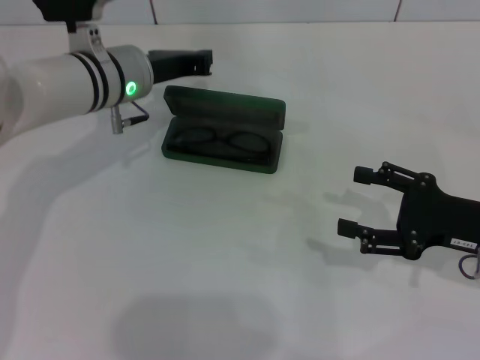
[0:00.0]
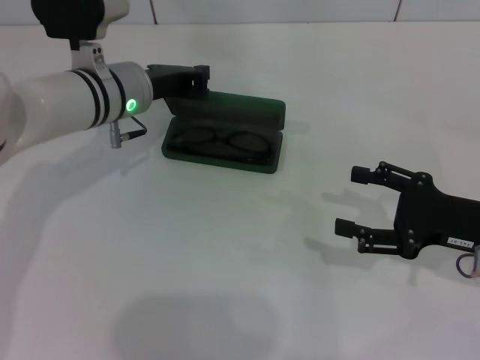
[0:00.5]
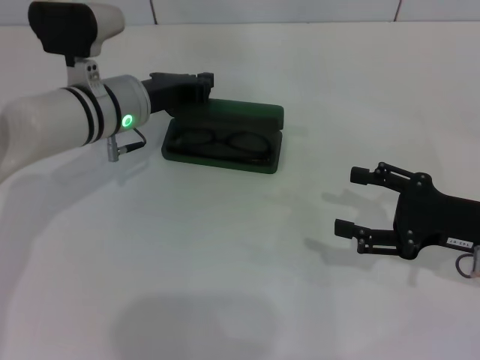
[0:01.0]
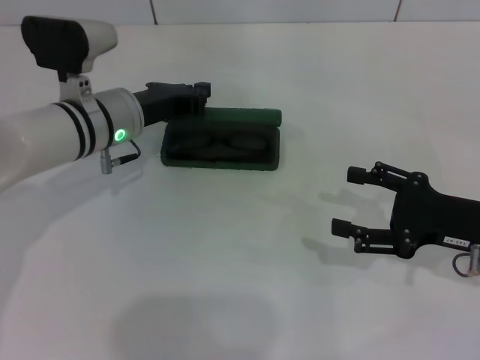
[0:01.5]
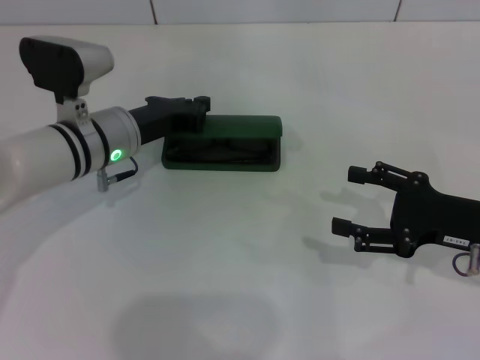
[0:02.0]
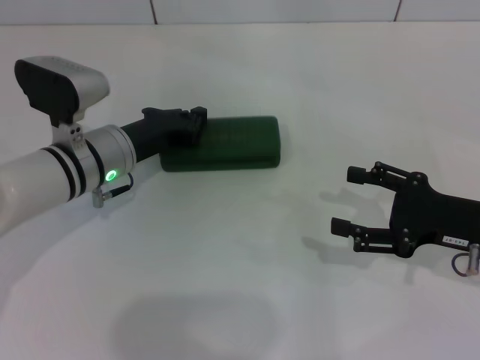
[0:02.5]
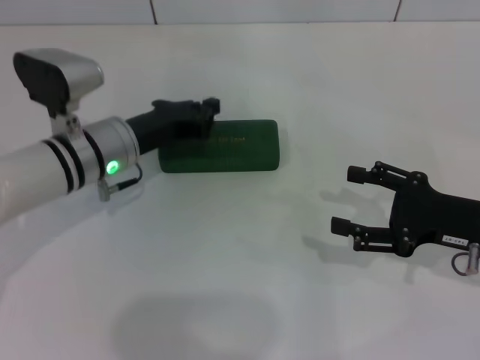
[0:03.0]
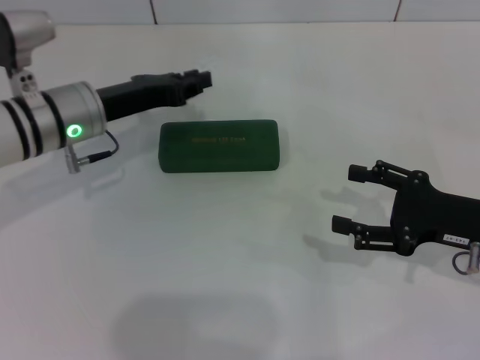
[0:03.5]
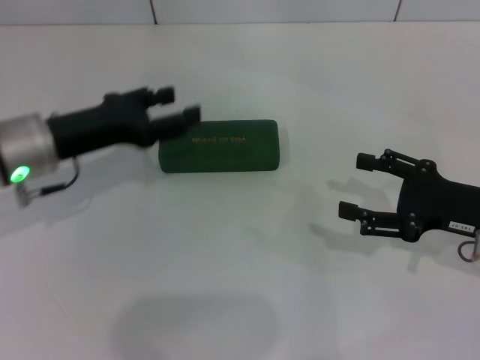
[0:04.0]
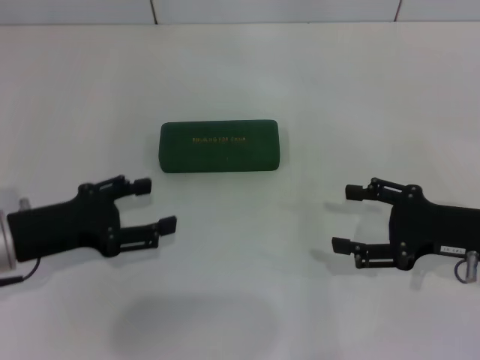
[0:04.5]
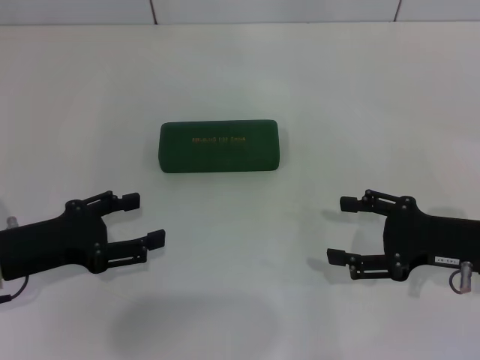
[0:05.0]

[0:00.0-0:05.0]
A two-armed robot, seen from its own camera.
Step, 0:00.0 to 0:02.0: Close the glasses case with your left hand.
0:00.0 to 0:02.5: The left gripper moves backward and downward, approximately 10 cm.
0:02.5 to 0:05.0: The left gripper is displaced backward and to the left by roughly 15 cm, and opens.

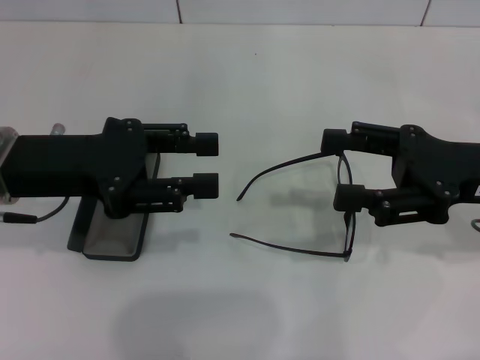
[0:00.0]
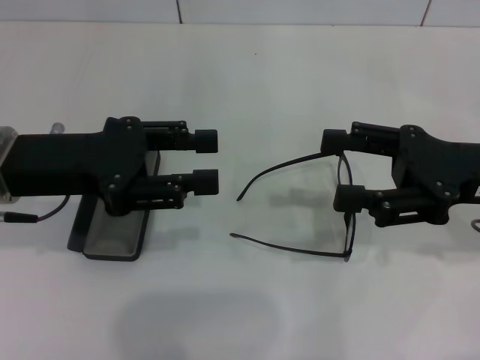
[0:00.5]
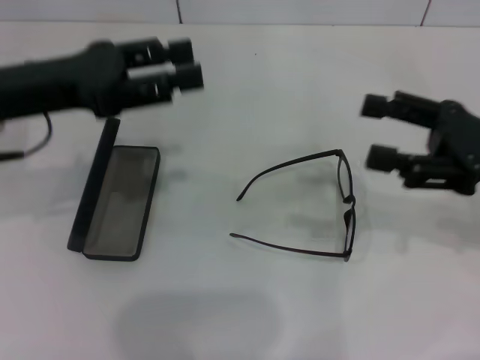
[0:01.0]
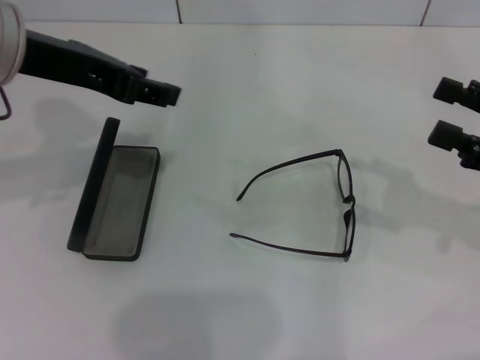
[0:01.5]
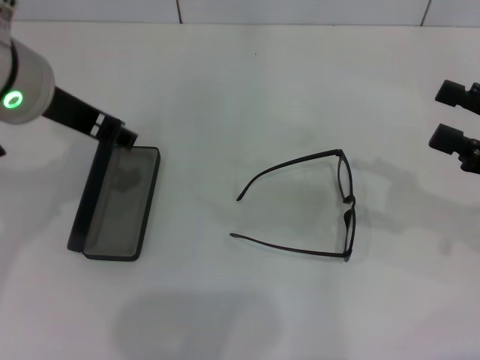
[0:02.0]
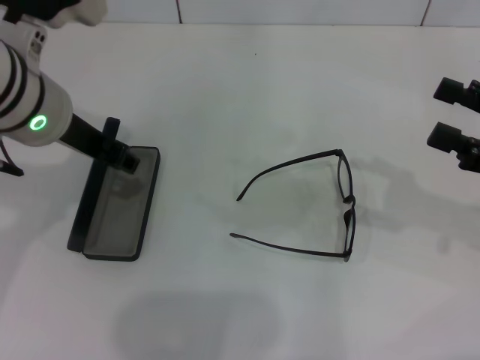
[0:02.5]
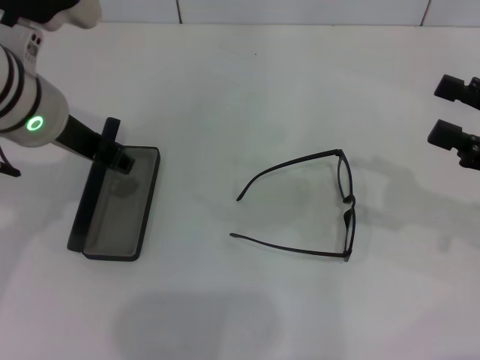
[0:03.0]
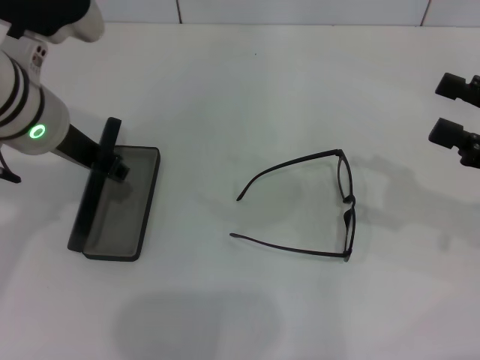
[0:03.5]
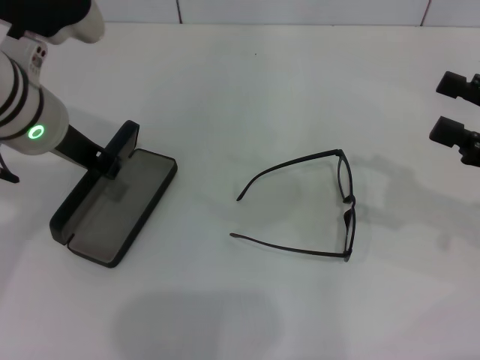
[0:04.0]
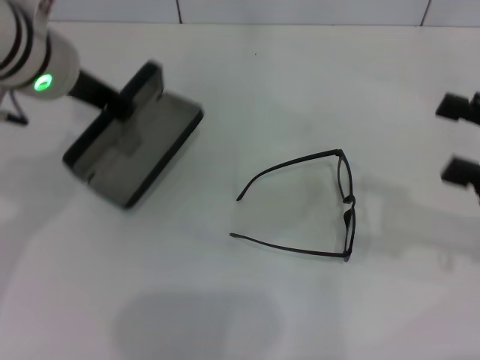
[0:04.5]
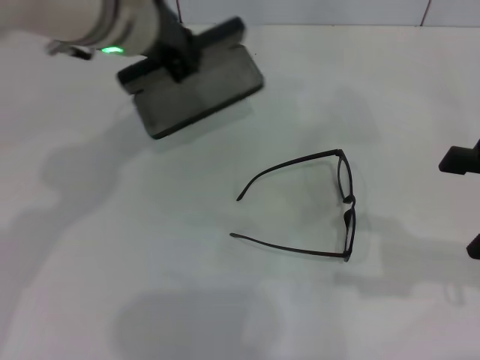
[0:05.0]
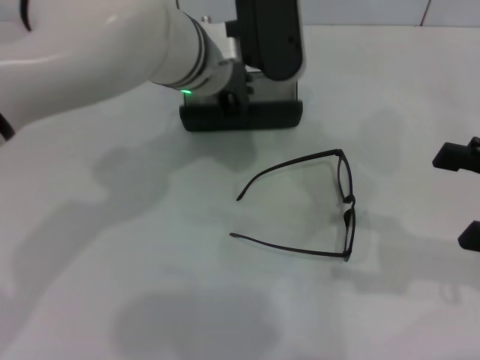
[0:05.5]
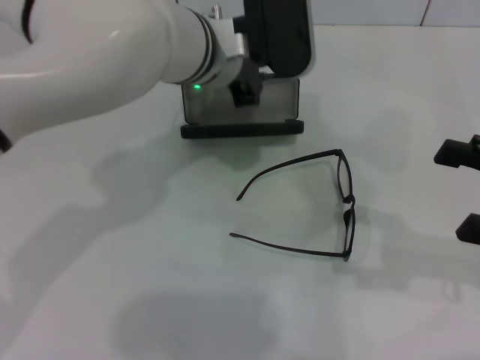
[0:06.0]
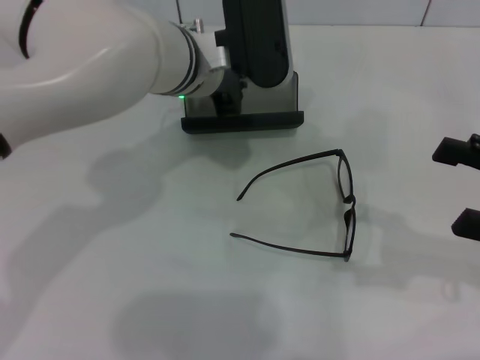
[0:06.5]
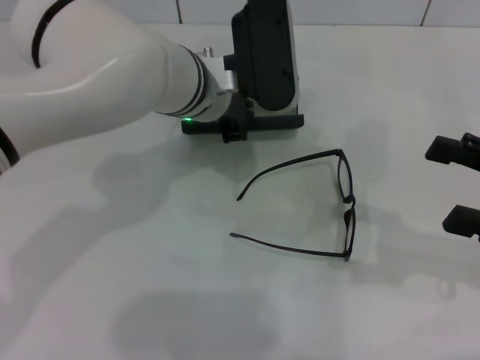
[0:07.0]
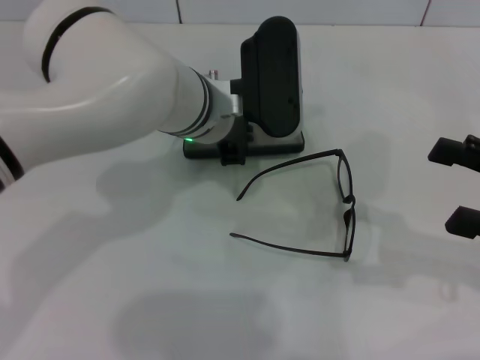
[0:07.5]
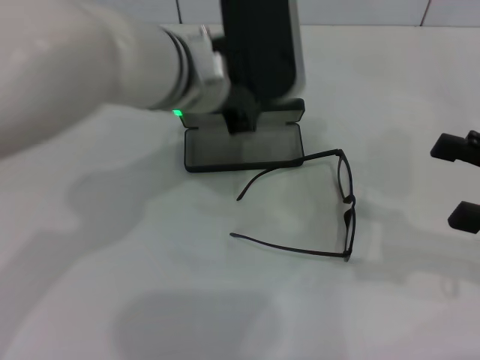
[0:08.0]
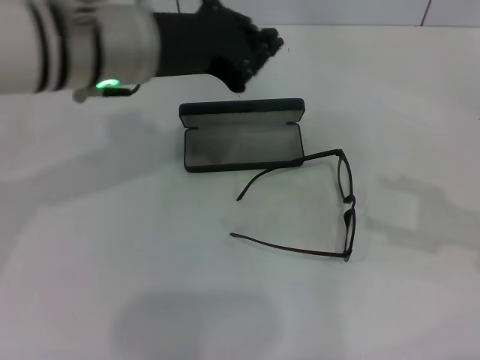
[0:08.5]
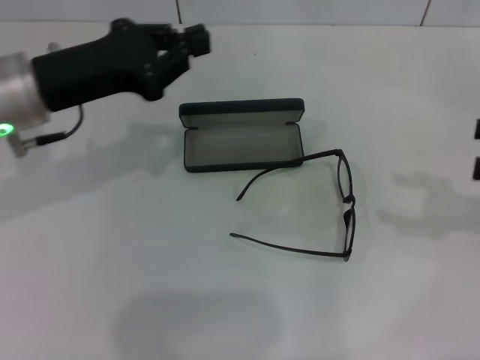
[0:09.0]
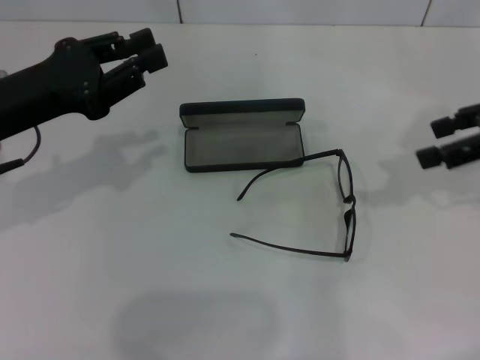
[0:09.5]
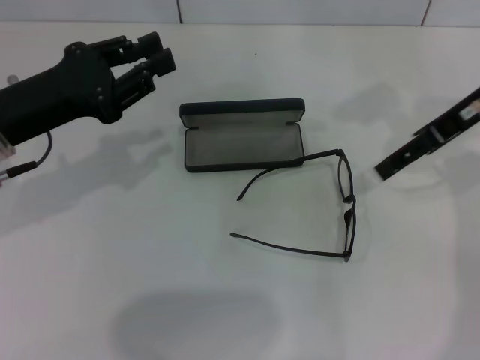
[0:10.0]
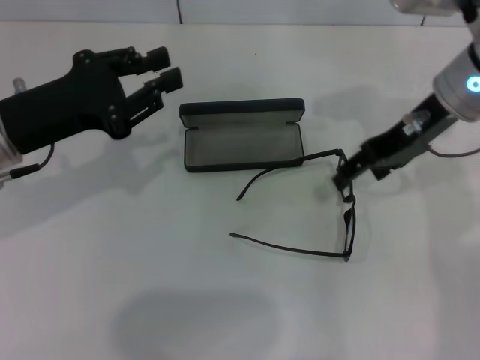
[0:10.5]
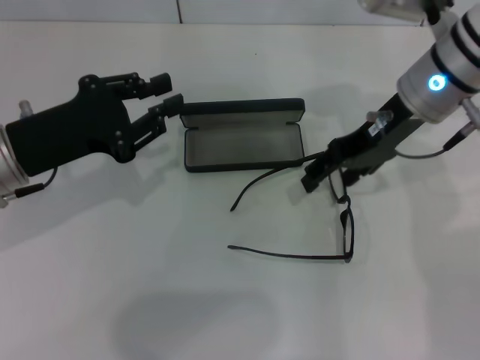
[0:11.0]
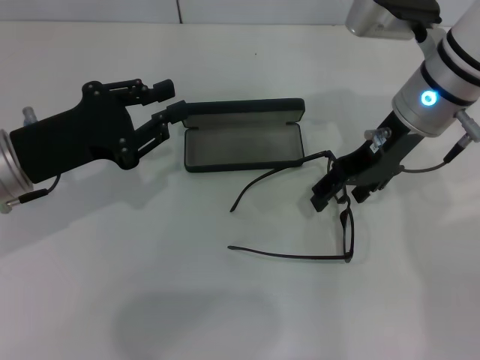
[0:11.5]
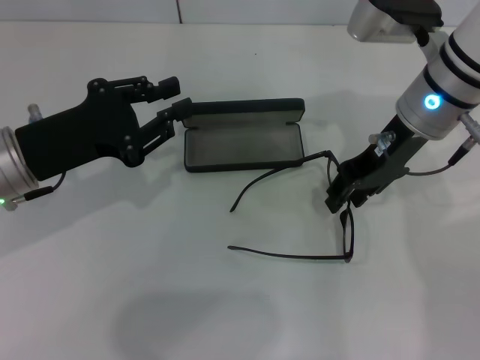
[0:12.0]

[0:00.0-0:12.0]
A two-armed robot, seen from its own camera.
Step, 0:00.0 to 0:03.5: Grab the glasses case with your left hand.
Step, 0:04.0 to 0:07.5: Place the glasses case in the center of the table with your left hand.
0:00.0 to 0:02.0: The left gripper travels upward and to the right by about 10 cm. Meanwhile the right gripper heads to the right, covering approximately 10 cm.
0:02.0 to 0:04.0: The left gripper travels downward by some 5 cm, and closes its fingers.
0:04.0 to 0:06.0: The left gripper travels to the right by roughly 15 cm, and closes.
0:06.0 to 0:08.0: There are only small adjustments of the grippers.
0:08.0 to 0:10.0: The right gripper moves forward, to the left and upward, approximately 20 cm; the left gripper is displaced to the left by approximately 20 cm, and opens.
0:10.0 to 0:12.0: The right gripper travels to the left and downward by approximately 10 cm.

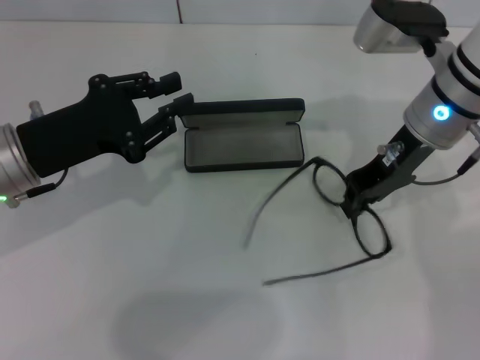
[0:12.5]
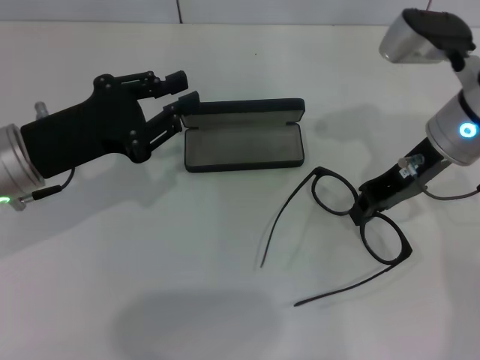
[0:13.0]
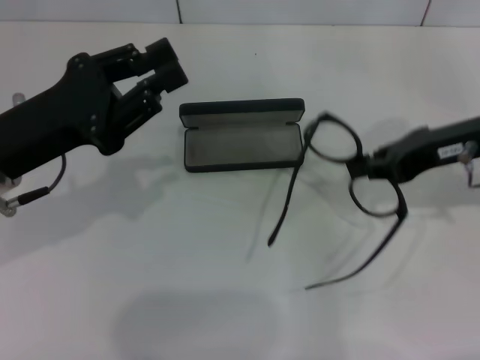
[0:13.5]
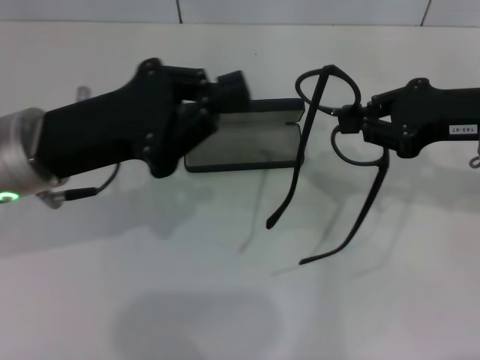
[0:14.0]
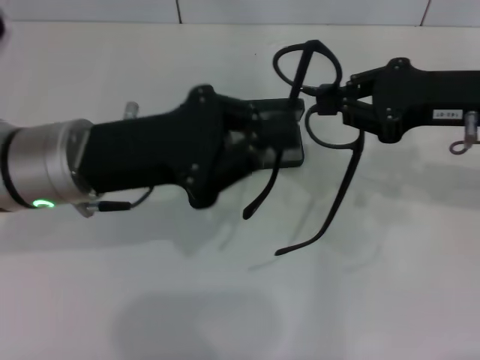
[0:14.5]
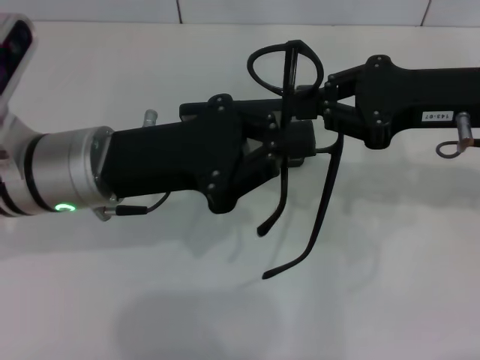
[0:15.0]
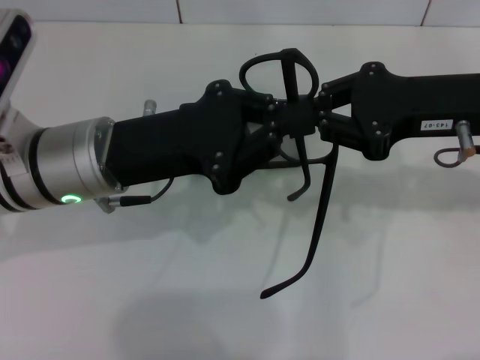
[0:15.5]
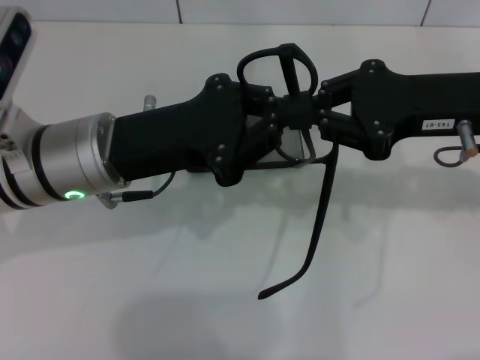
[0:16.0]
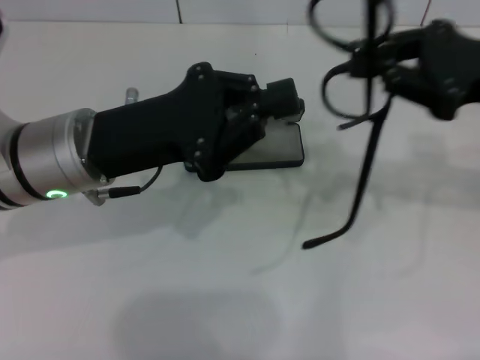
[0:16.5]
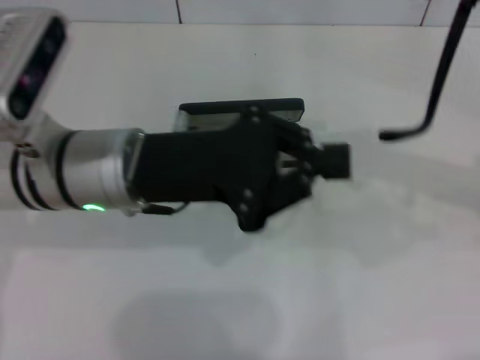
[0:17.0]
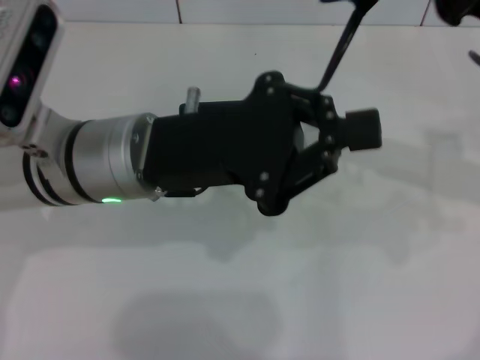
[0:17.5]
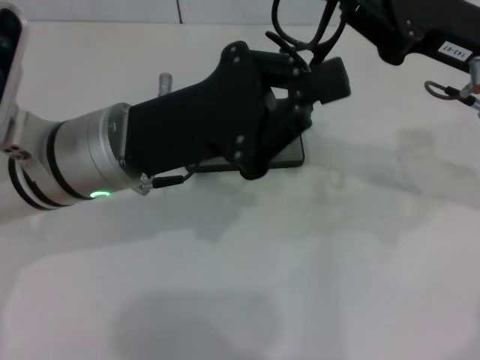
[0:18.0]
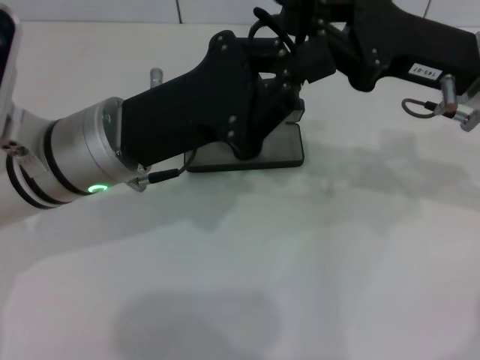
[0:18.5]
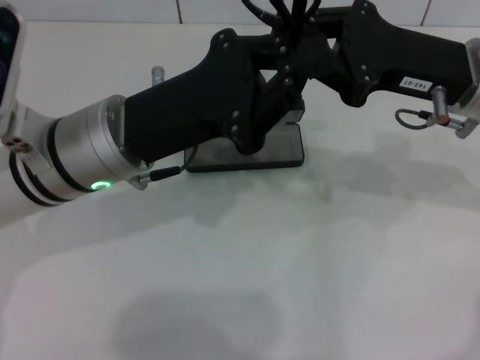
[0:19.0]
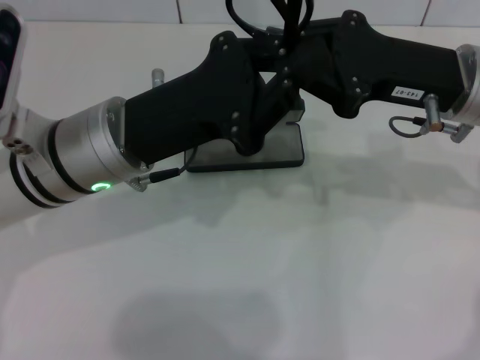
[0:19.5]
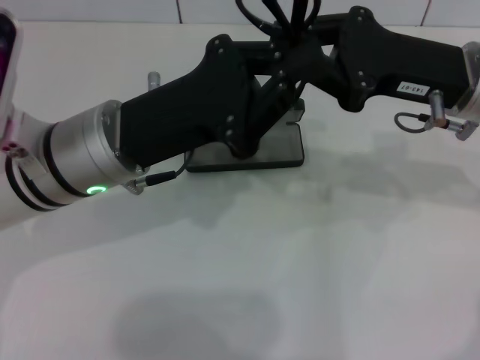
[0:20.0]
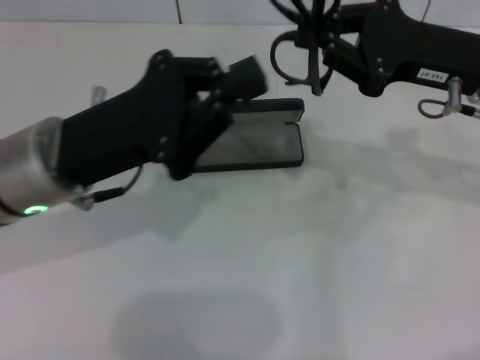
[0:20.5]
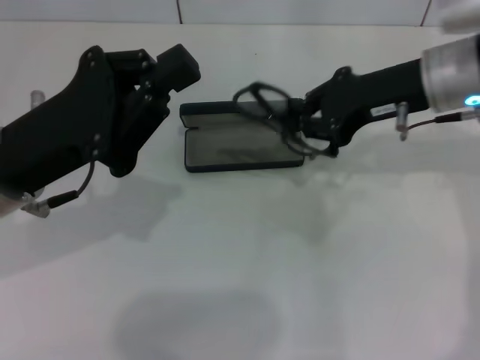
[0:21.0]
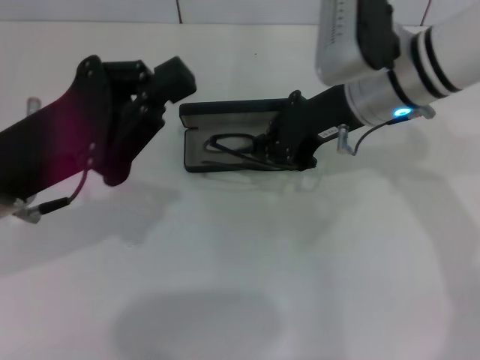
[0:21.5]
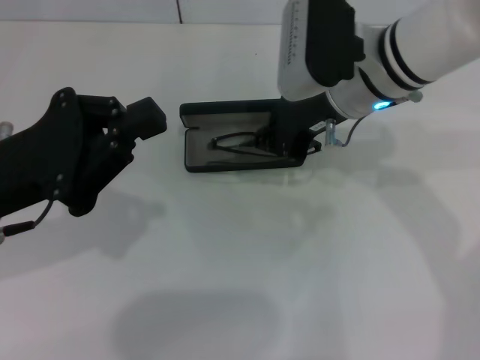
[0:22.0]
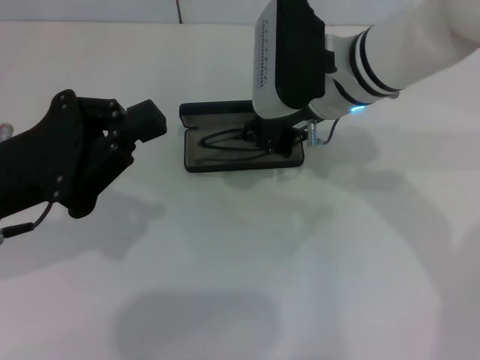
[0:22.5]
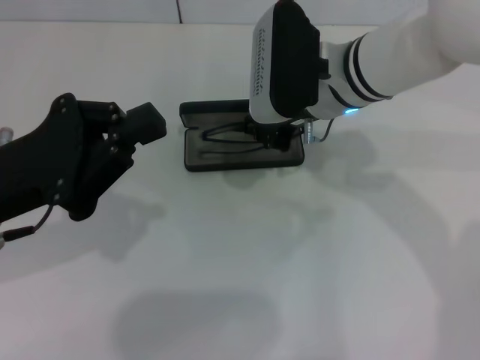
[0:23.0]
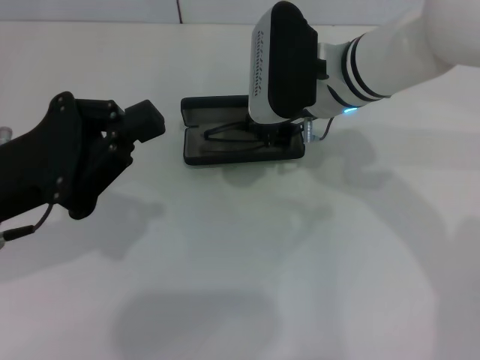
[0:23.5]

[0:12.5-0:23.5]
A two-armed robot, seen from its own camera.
Step, 0:13.0 to 0:19.5: Fold the frame with your left hand.
0:12.5 to 0:14.5: The left gripper travels to the right by some 5 cm, and closes, while the right gripper moves to the right and backward, approximately 10 cm.
0:14.5 to 0:16.0: There are only small adjustments of the grippers.
0:16.0 to 0:18.0: The right gripper moves some 10 cm to the right and comes back.
0:18.0 to 0:20.0: The grippers make only small movements.
0:20.0 to 0:21.5: Both grippers travel together to the left, some 10 cm.
0:21.5 to 0:23.5: The right gripper shifts by some 5 cm.
